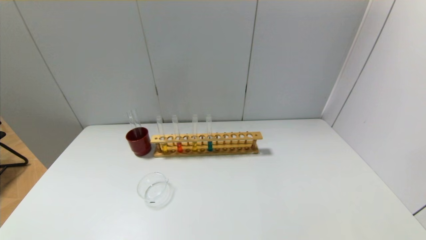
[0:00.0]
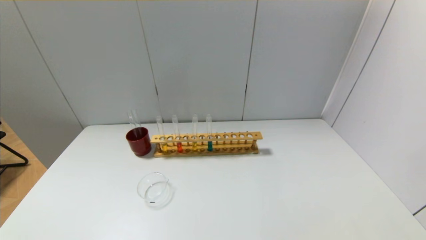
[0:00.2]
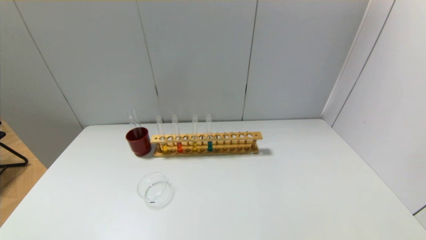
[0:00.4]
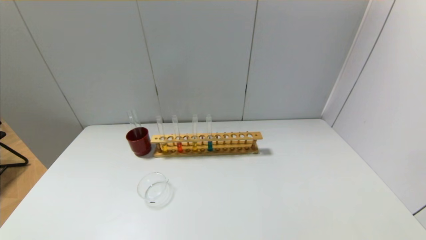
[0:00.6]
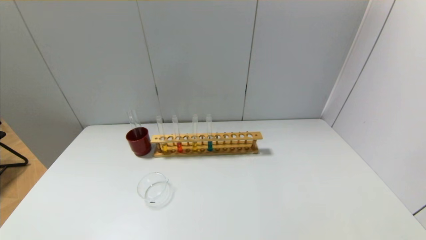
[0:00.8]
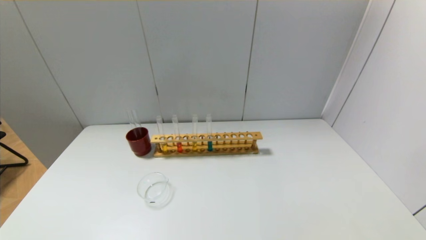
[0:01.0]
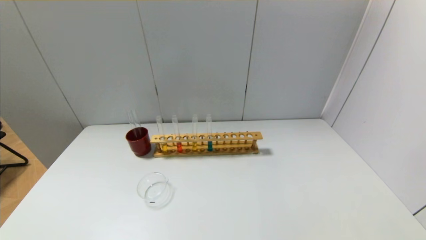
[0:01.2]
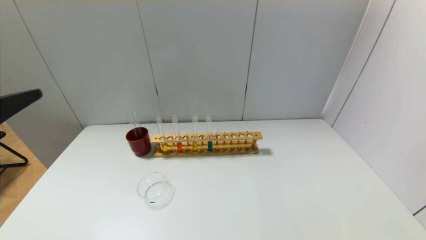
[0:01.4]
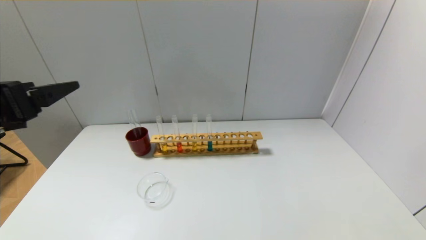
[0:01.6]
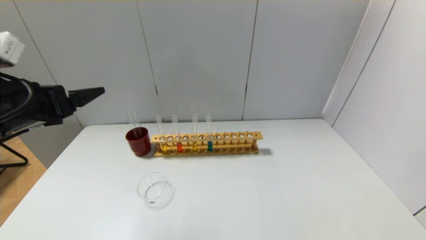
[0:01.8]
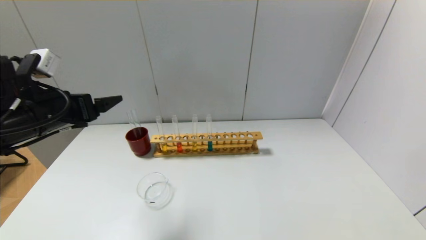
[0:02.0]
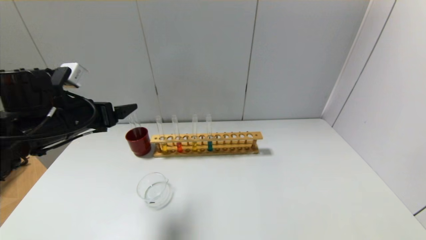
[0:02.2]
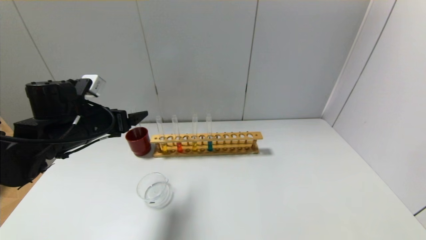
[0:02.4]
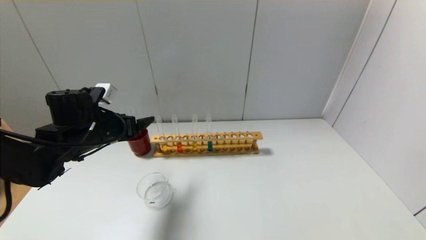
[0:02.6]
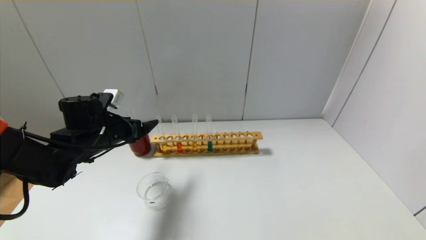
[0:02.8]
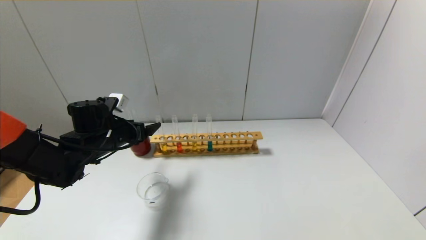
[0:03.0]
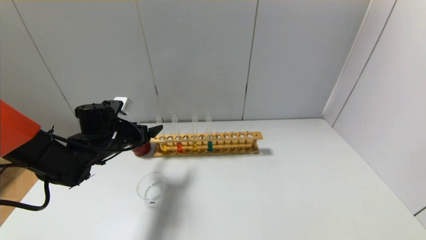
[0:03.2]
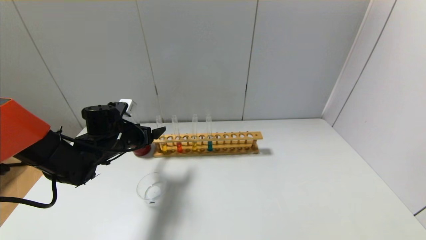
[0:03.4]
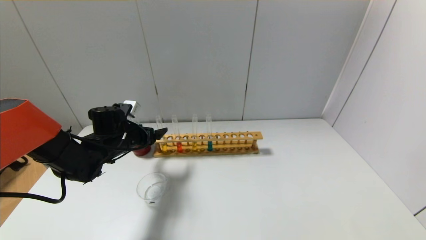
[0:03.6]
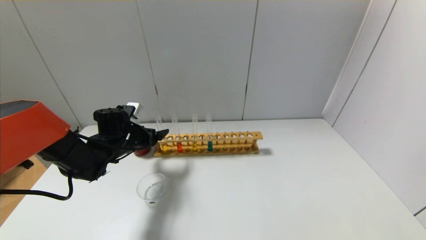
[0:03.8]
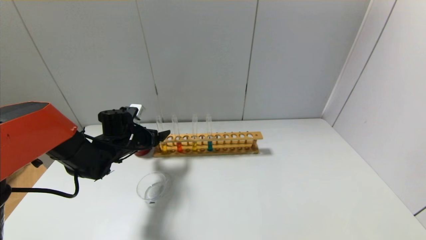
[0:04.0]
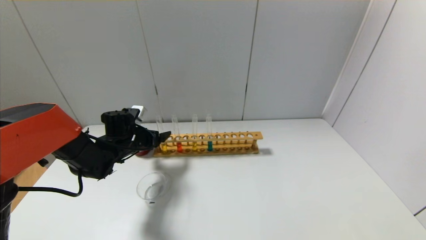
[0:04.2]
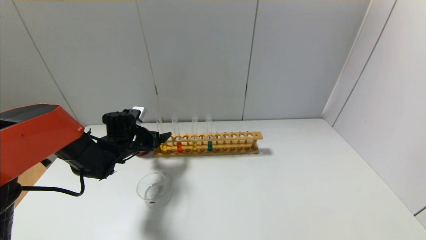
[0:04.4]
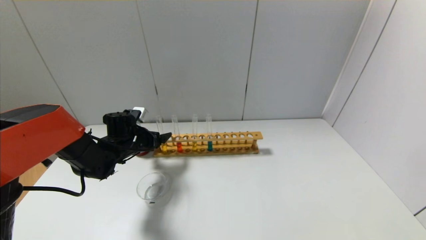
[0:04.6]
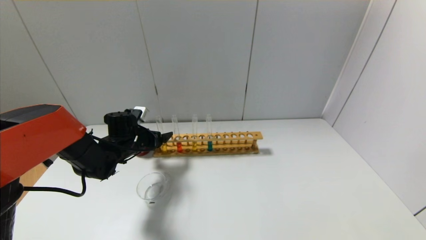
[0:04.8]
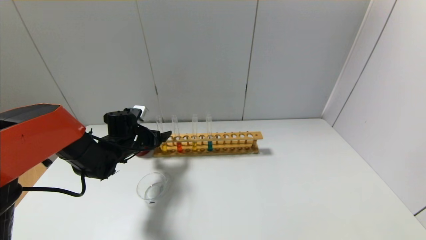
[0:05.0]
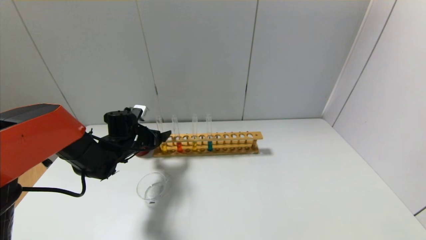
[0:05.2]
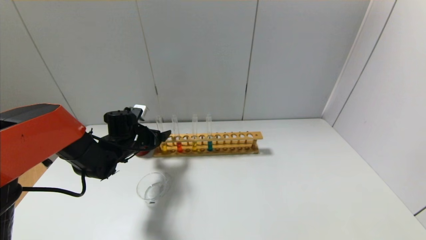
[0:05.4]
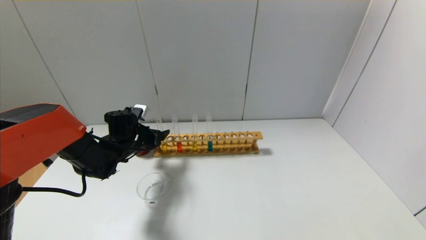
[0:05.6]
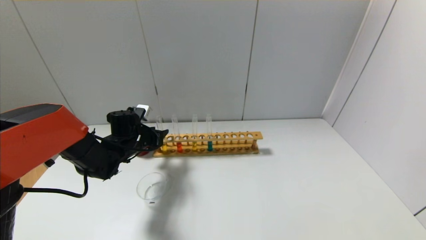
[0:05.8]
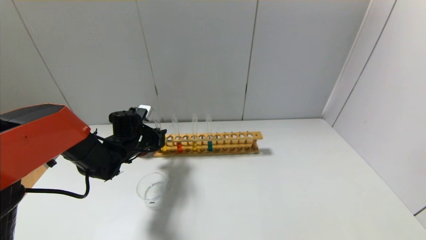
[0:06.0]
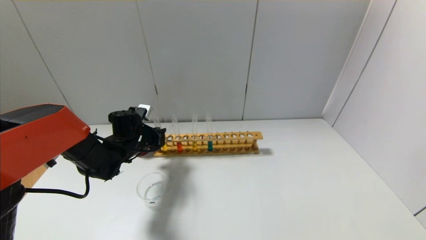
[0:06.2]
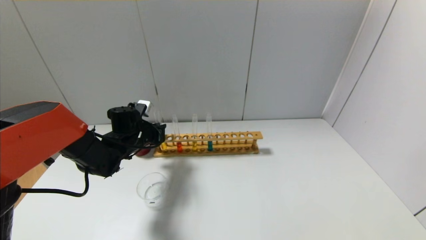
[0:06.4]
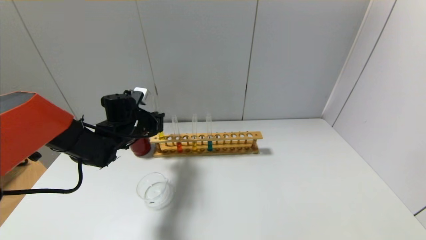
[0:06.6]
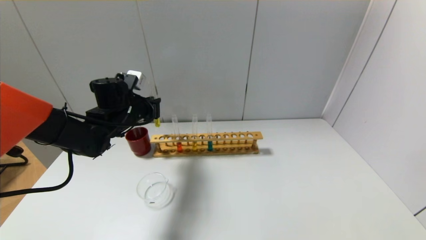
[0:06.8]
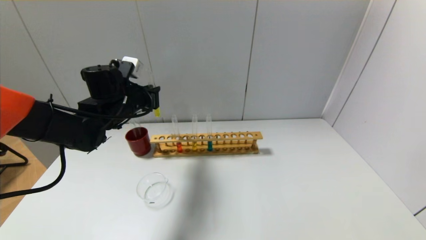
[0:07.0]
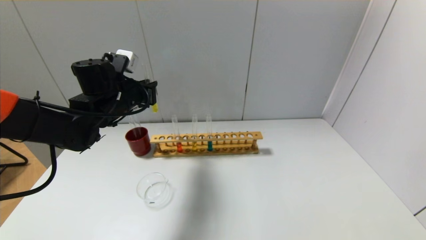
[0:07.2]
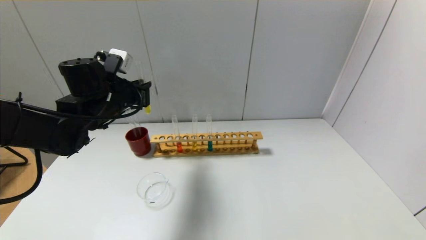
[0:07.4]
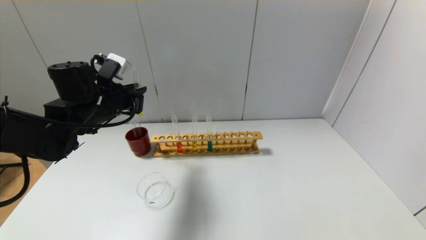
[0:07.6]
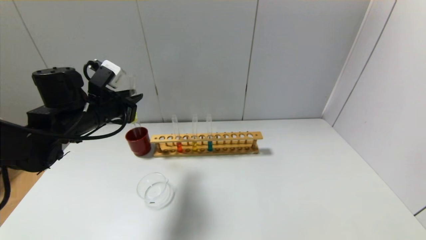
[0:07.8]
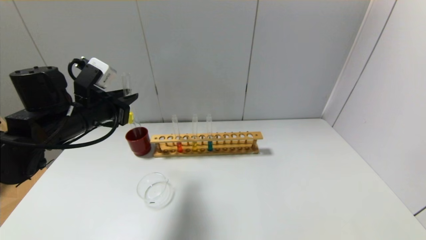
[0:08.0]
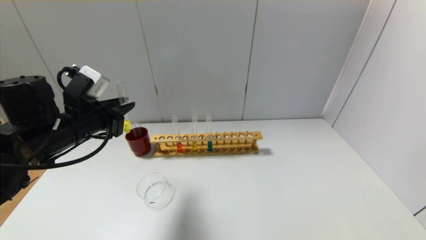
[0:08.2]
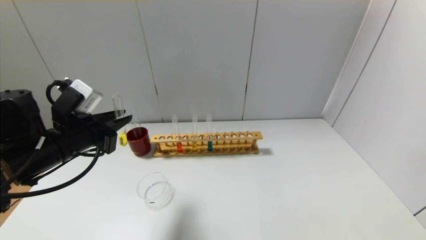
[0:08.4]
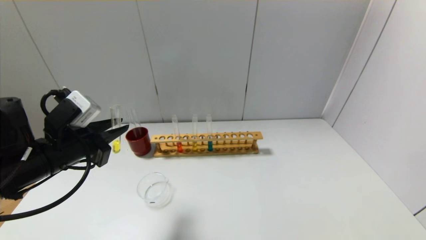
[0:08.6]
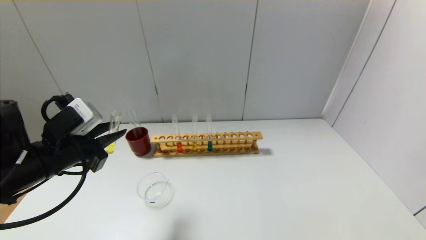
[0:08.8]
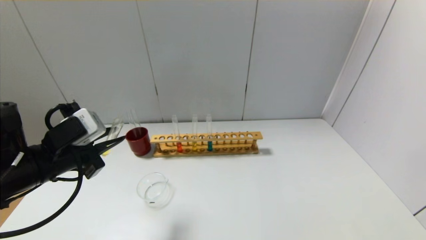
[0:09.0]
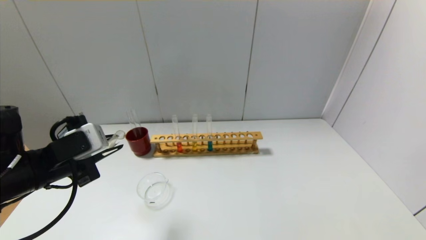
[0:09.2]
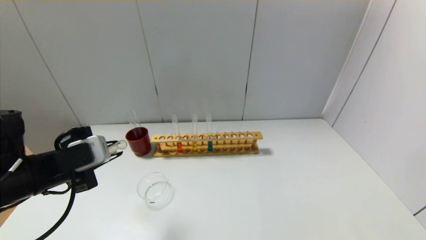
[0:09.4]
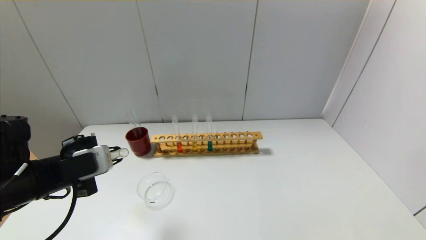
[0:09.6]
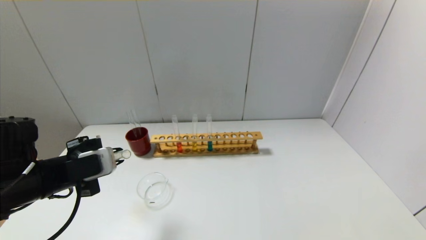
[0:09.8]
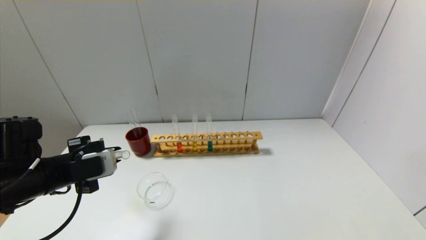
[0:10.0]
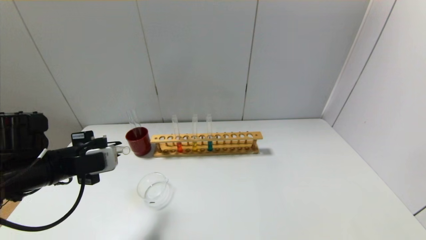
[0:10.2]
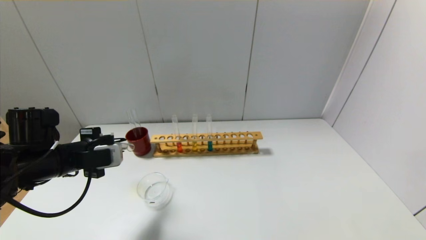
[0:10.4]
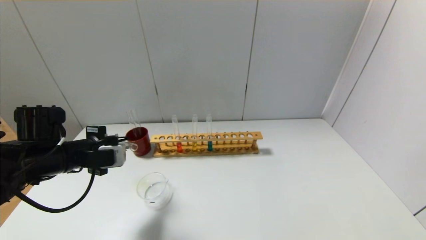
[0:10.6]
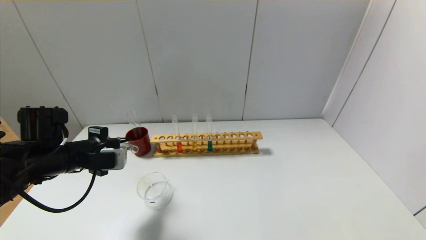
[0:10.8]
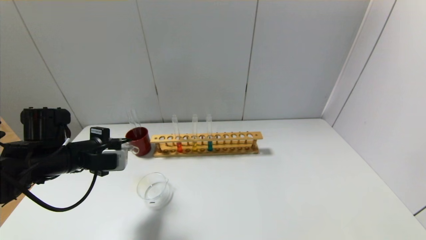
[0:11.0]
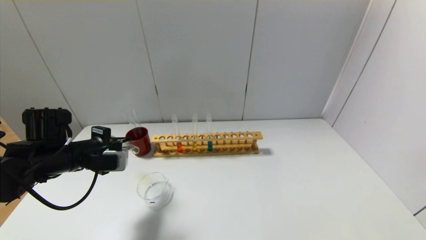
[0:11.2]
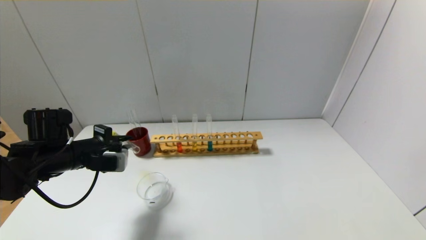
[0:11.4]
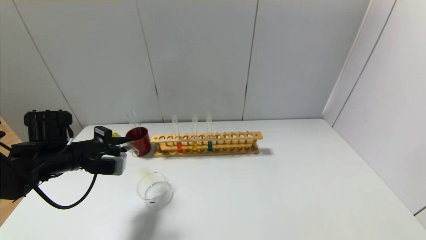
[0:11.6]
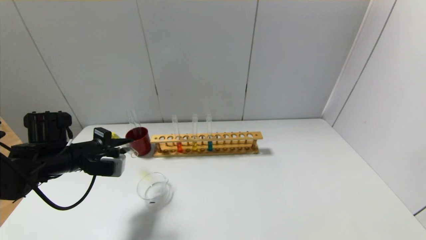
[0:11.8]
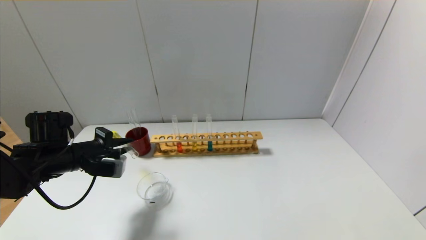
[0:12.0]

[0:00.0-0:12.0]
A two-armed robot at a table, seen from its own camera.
Step, 0.0 to 6.2 s: Grasp the yellow reagent with the left gripper.
0.0 to 1.6 s: The left gripper travels upward and forward by approximately 30 cm.
1.6 to 3.0 s: The left gripper travels forward and downward by approximately 25 cm.
3.0 to 4.4 s: The left gripper moves downward and forward, roughly 10 cm.
4.4 to 6.0 s: The left gripper closes its fingers.
6.0 to 7.6 s: The left gripper travels upward by some 15 cm.
7.6 to 9.0 s: The left gripper shifts roughly 15 cm backward.
9.0 to 10.4 s: The left gripper changes place by some 5 cm.
10.4 to 12.0 s: The grippers stay close to where they were, moving slightly.

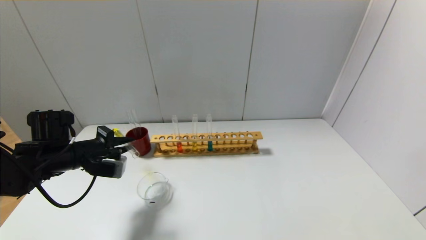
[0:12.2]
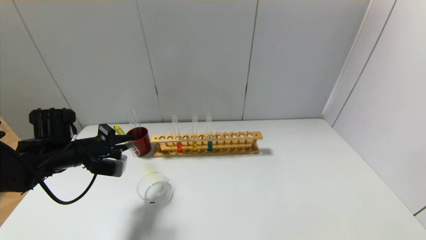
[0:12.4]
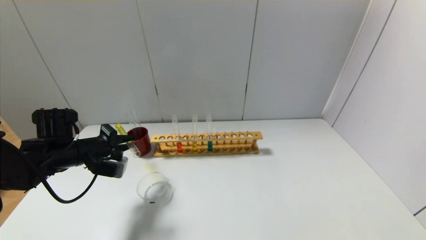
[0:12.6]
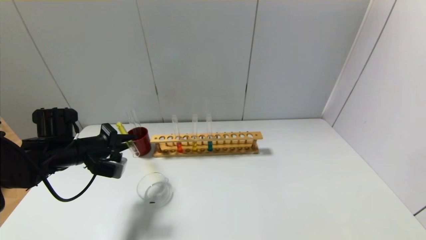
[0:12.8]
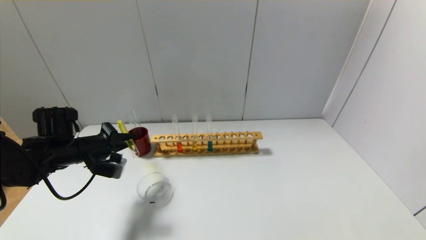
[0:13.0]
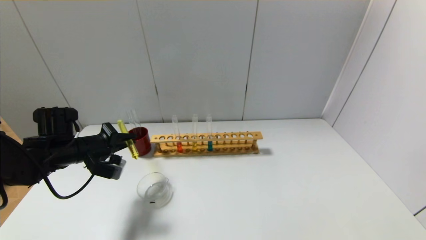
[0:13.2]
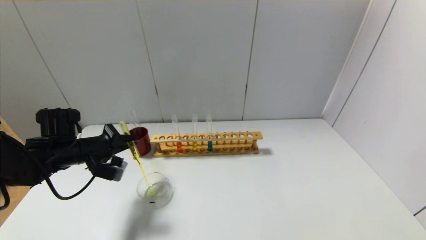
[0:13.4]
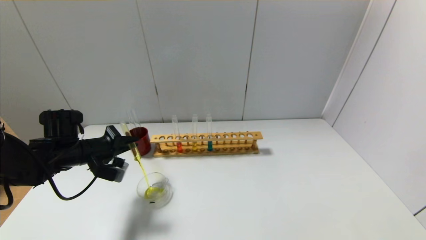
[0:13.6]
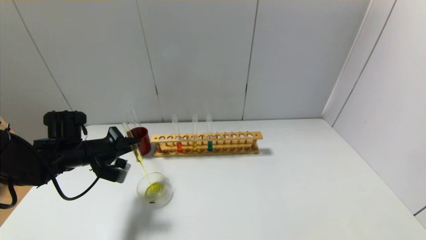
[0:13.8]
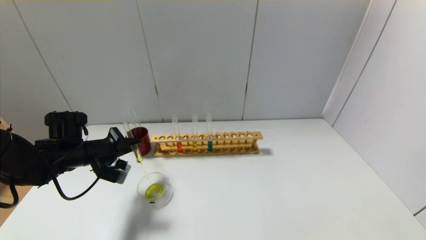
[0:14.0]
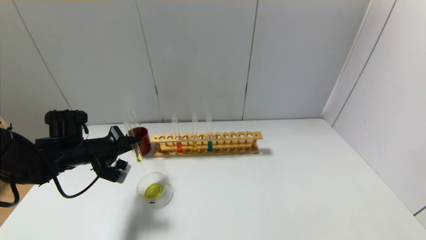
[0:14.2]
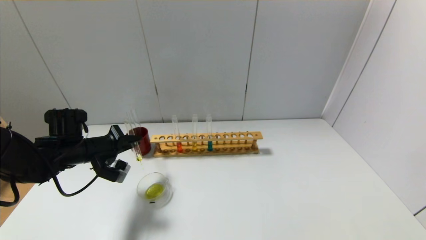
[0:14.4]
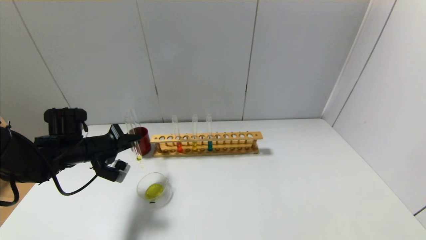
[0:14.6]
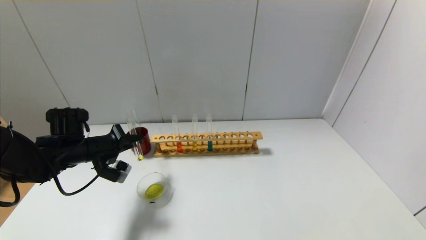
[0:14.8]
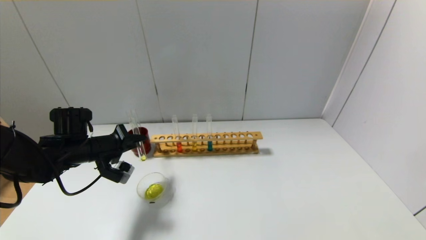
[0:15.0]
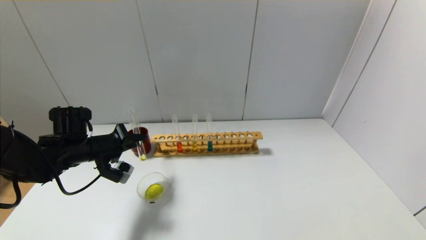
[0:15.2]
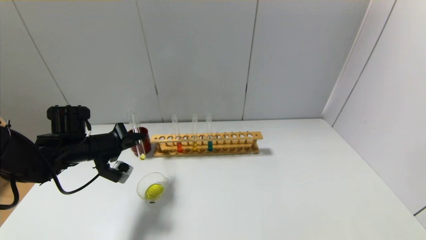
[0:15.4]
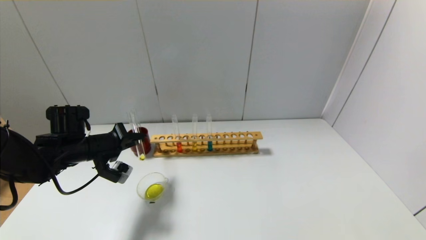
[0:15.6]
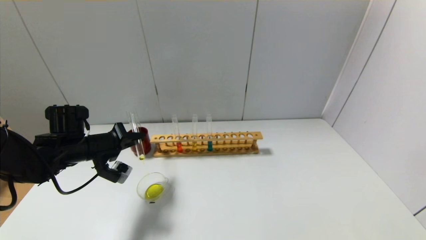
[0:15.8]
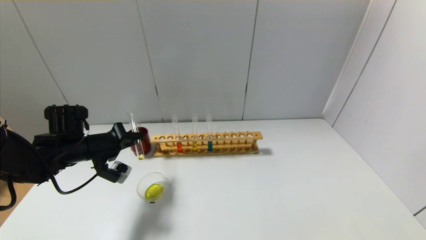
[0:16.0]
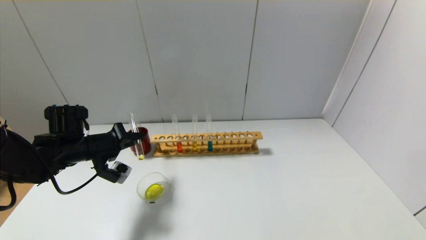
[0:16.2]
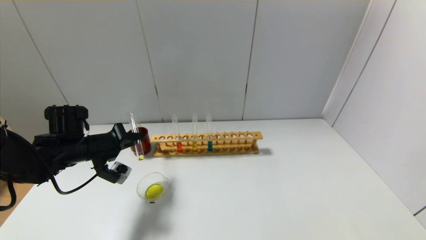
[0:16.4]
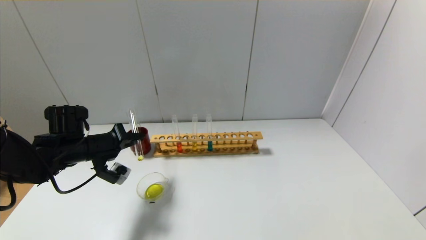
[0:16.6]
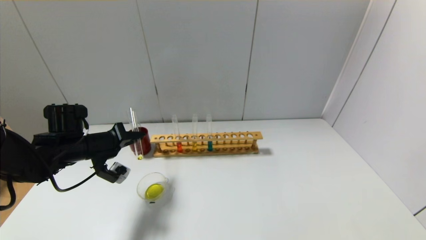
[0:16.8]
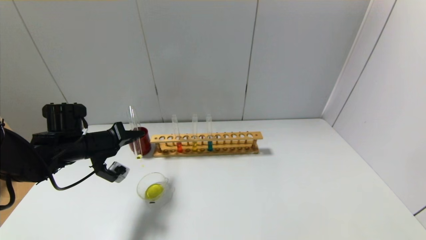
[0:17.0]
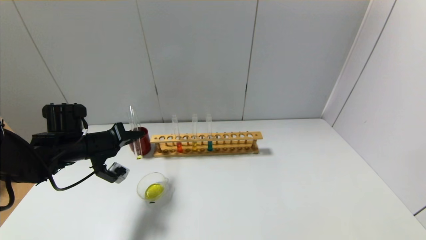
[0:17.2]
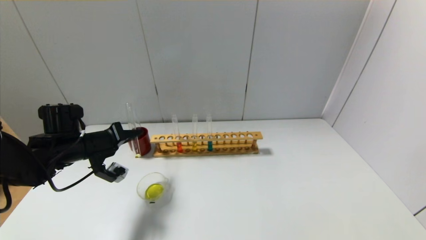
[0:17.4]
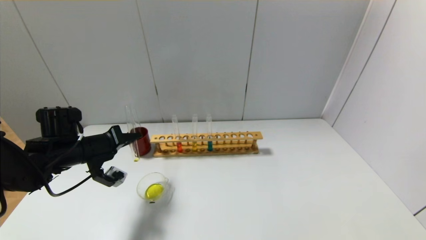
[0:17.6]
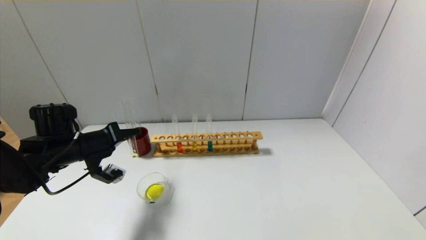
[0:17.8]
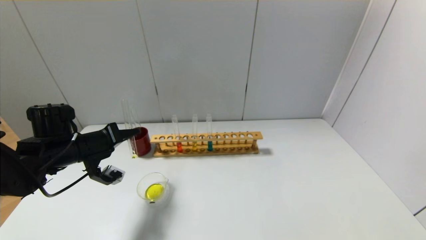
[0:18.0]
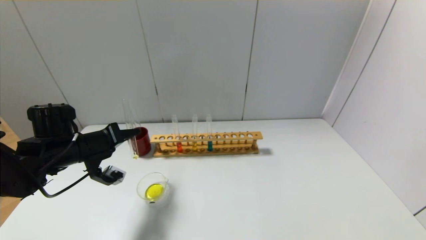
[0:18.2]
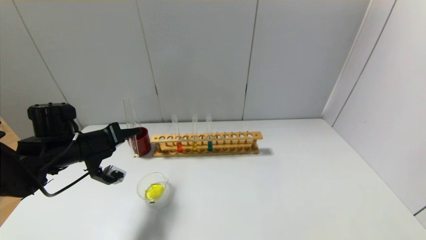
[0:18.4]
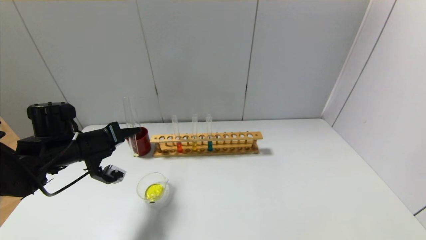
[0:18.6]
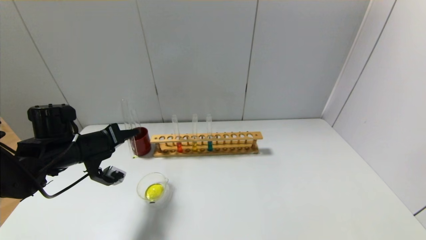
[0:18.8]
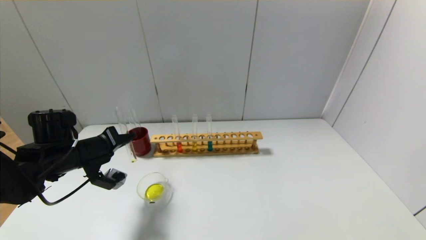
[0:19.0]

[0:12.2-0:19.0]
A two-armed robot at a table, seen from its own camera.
12.2 to 13.6 s: There are only small adjustments of the grippers.
13.6 to 16.2 s: The grippers move only a little.
16.2 to 17.6 s: There are only small adjustments of the grippers.
17.6 to 19.0 s: The grippers stay close to where they were, moving slightly.
